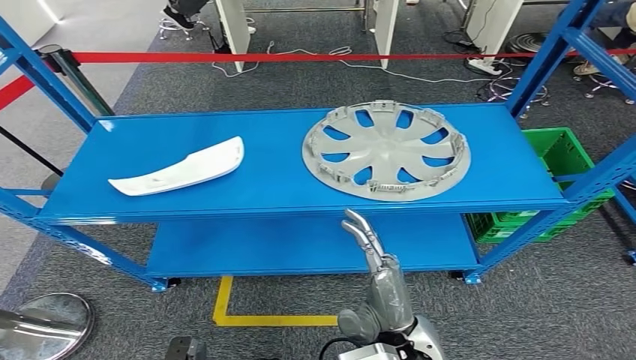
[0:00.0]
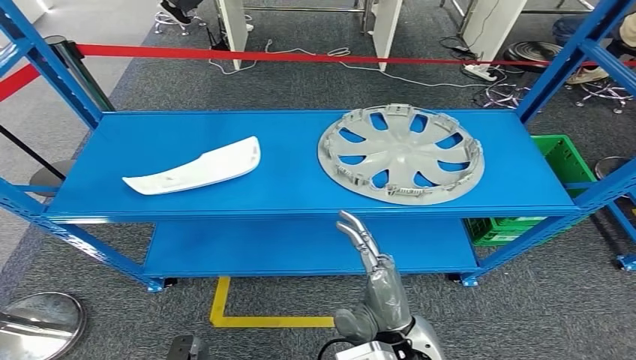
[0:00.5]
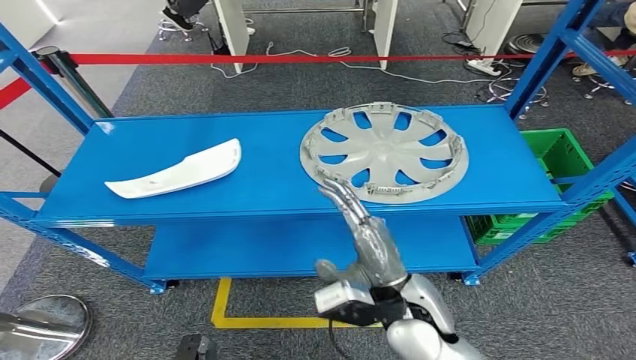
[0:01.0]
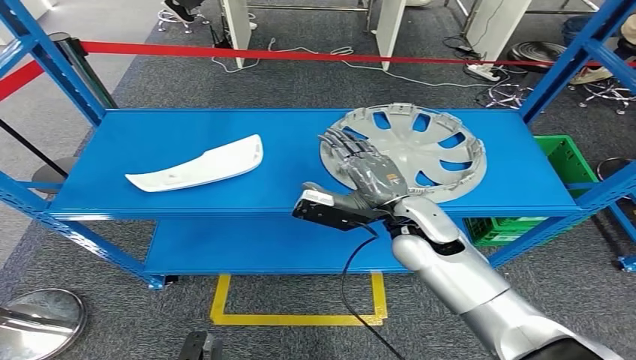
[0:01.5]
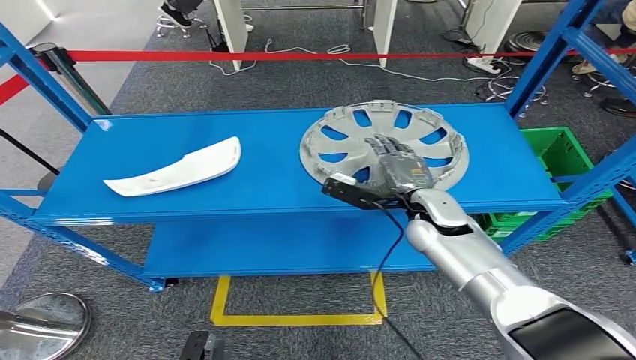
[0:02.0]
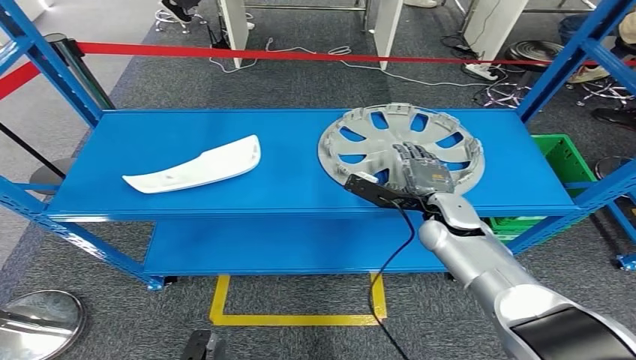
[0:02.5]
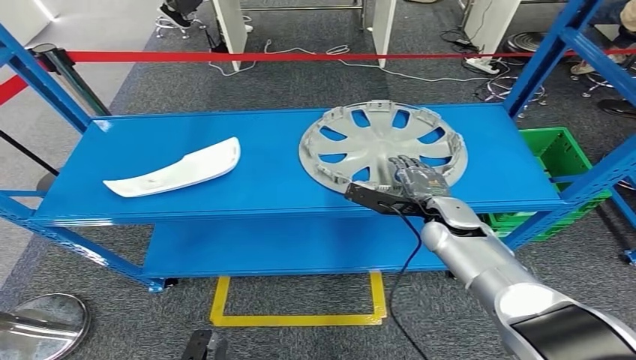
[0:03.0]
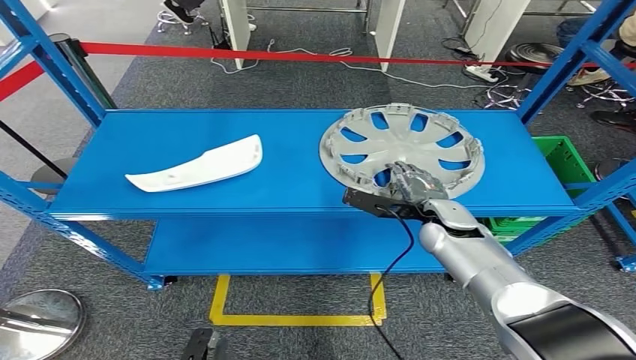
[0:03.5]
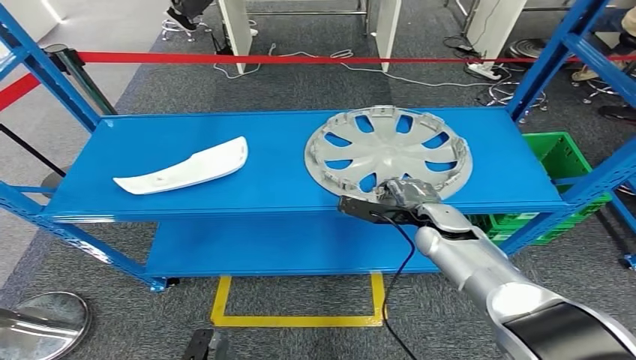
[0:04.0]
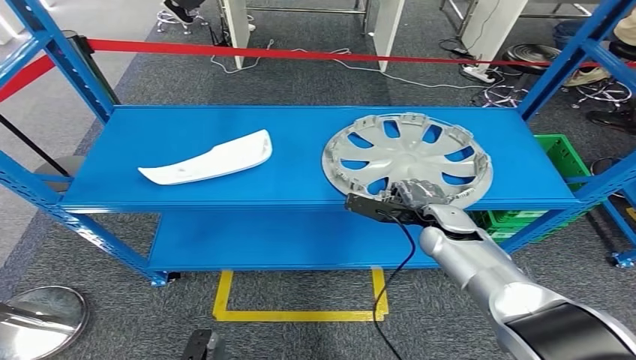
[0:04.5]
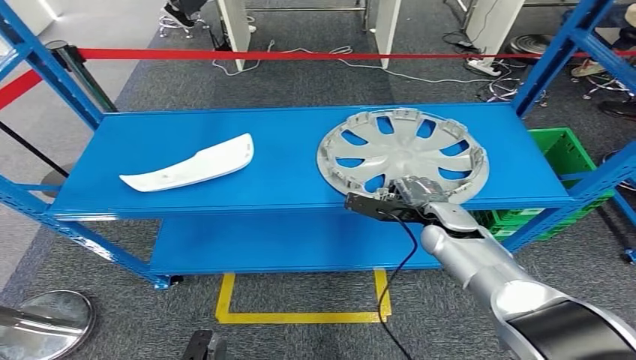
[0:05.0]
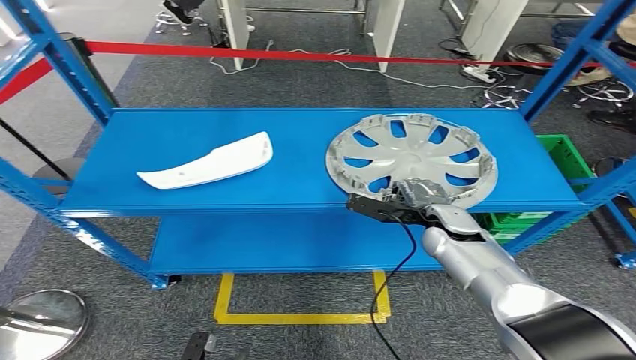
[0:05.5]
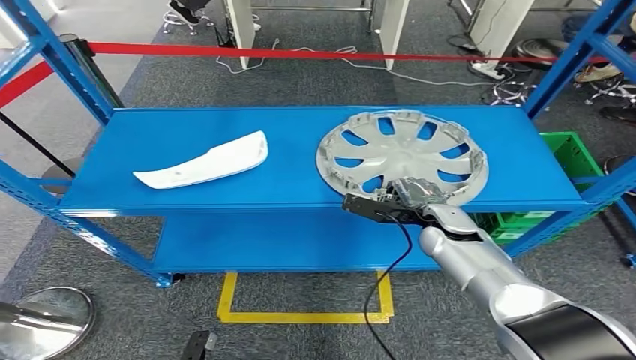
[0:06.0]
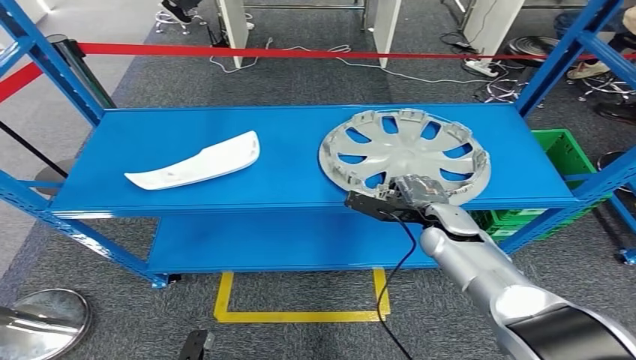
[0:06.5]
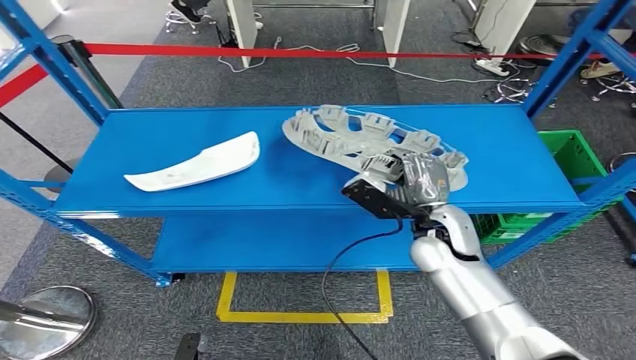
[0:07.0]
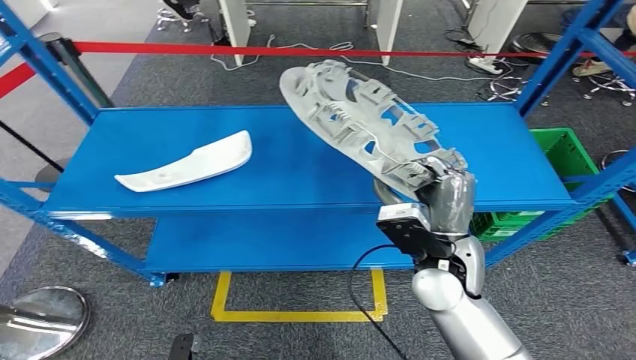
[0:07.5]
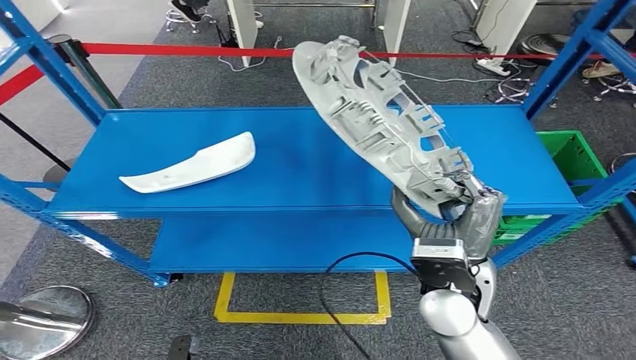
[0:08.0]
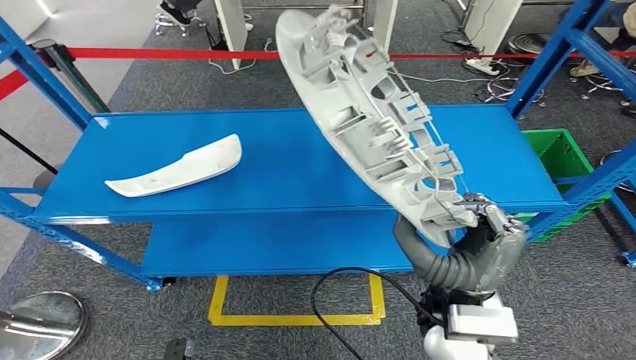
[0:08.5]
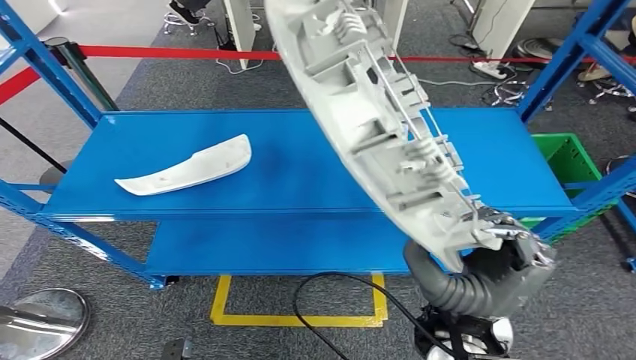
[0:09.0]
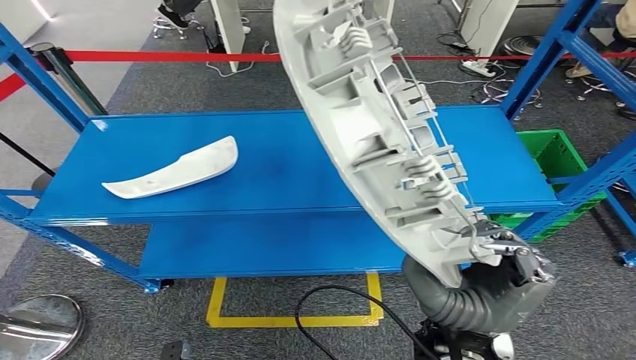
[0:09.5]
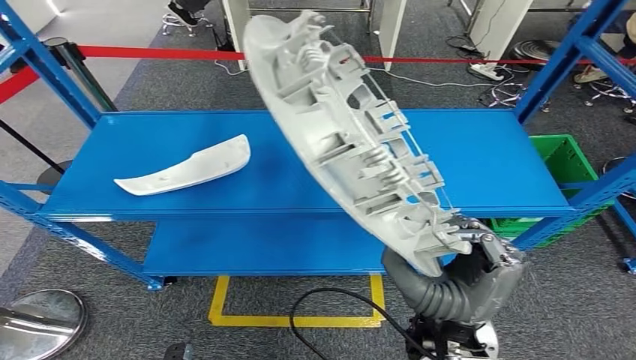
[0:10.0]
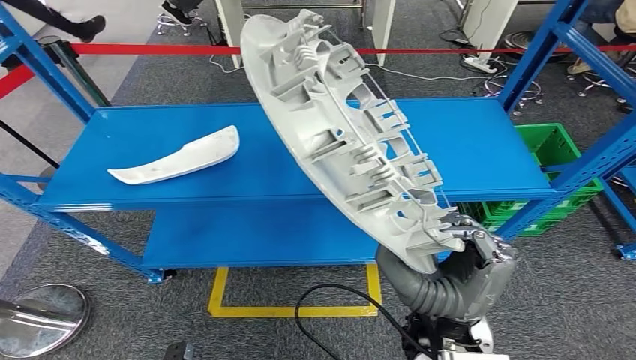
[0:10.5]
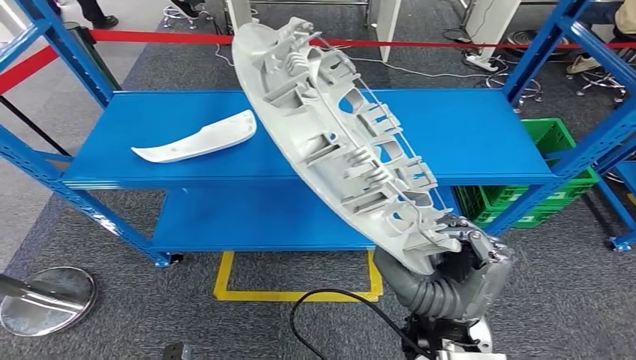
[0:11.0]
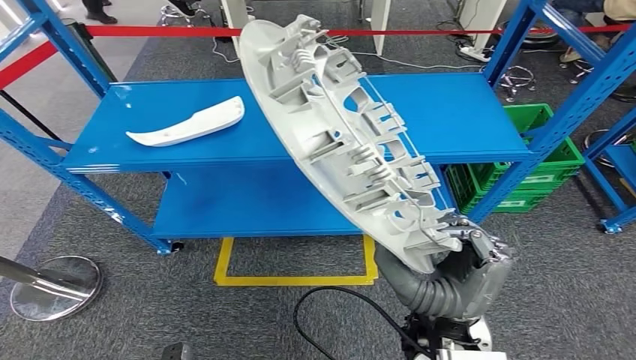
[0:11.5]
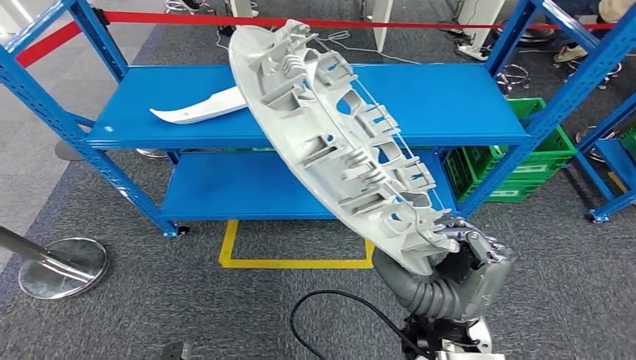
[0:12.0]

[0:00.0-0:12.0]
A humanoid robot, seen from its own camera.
Step, 0:00.0 to 0:10.0: Pick up the small component from the shelf.
0:00.0 to 0:02.0: The right hand shifts approximately 25 cm forward.

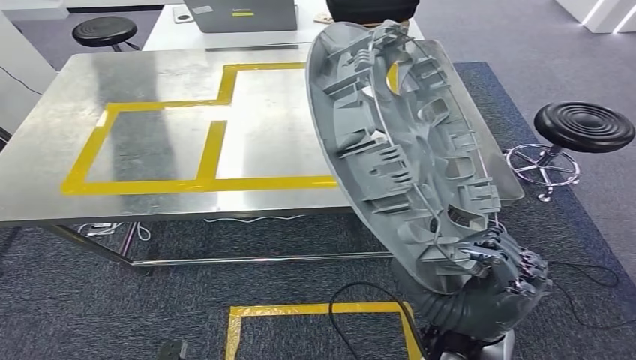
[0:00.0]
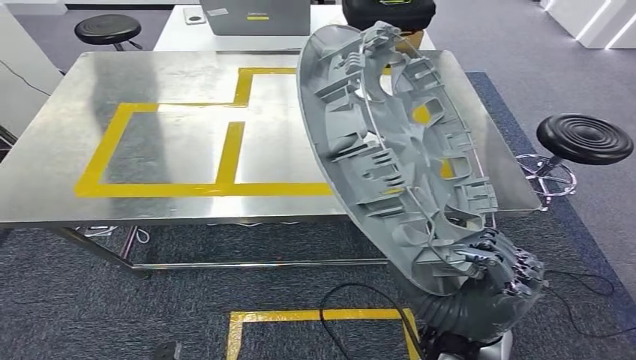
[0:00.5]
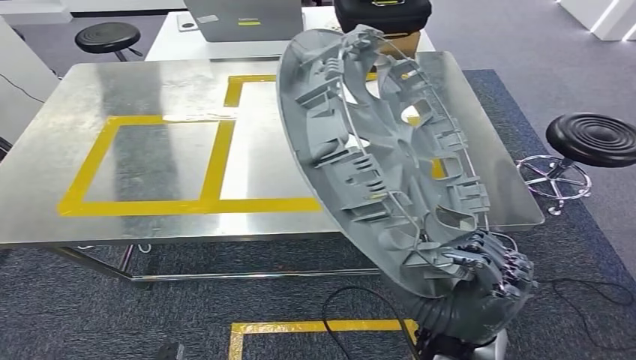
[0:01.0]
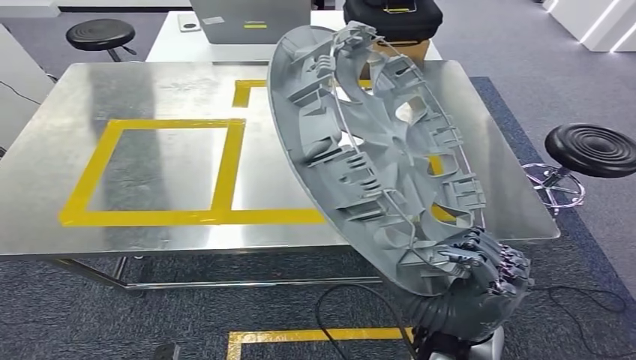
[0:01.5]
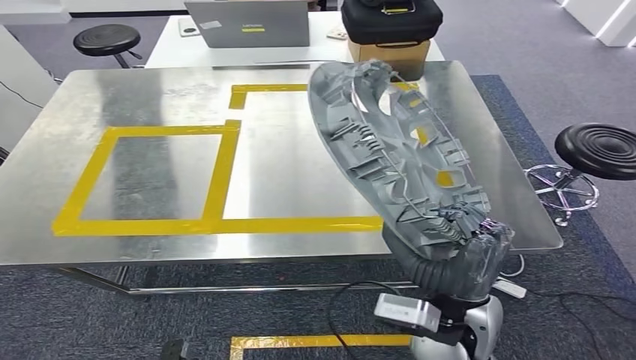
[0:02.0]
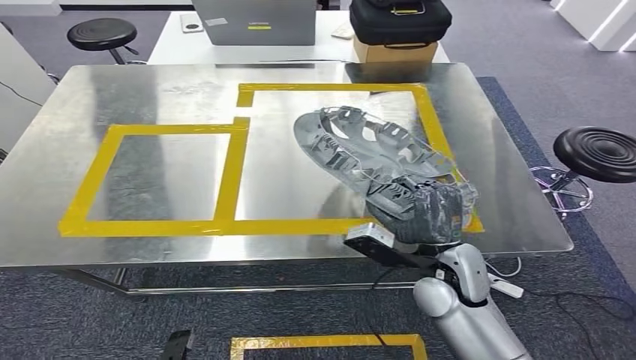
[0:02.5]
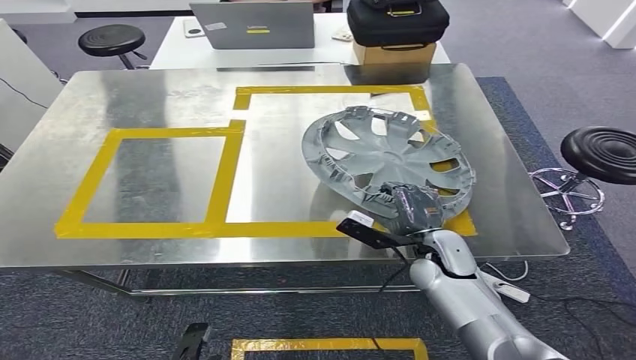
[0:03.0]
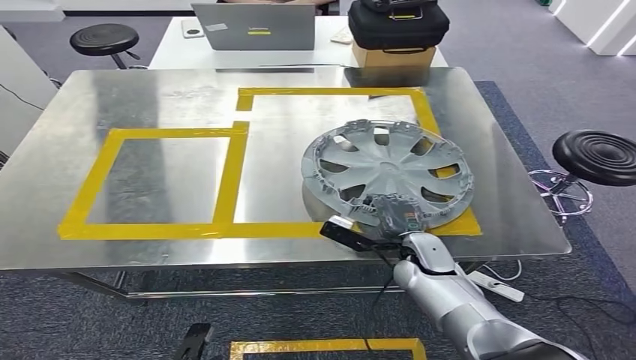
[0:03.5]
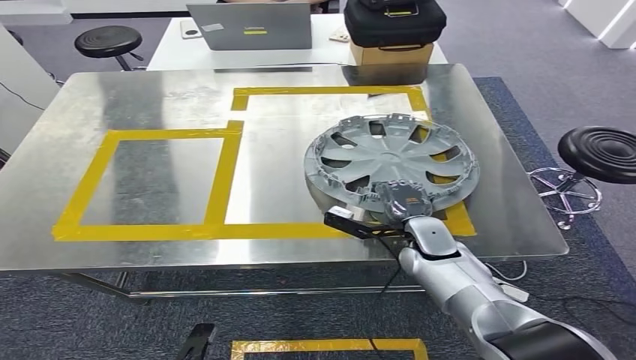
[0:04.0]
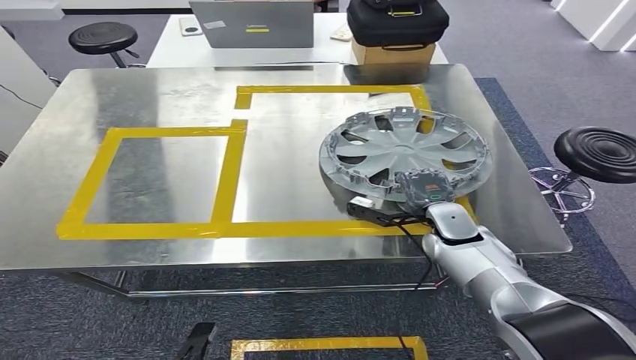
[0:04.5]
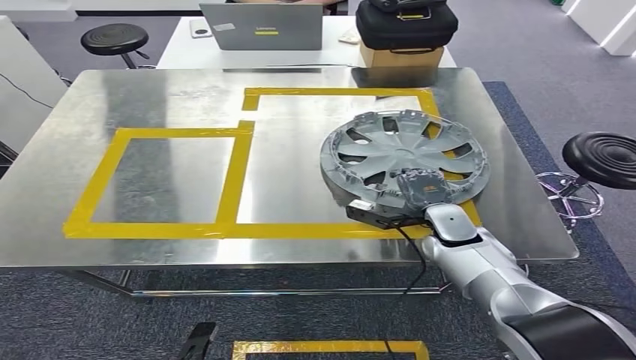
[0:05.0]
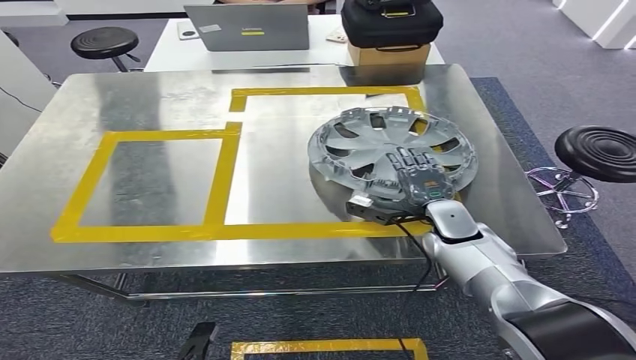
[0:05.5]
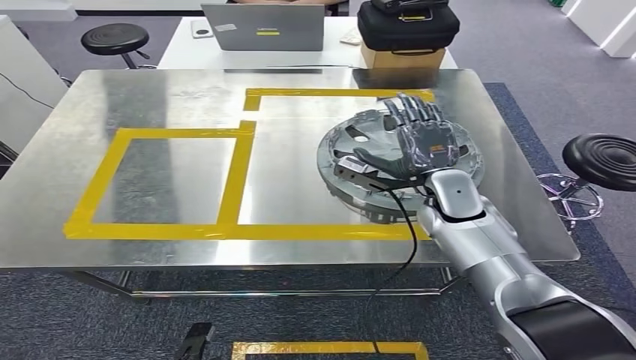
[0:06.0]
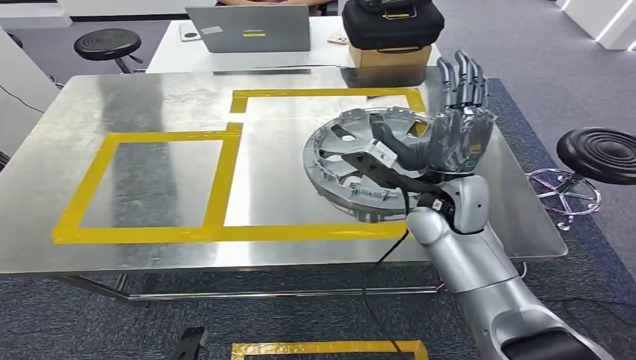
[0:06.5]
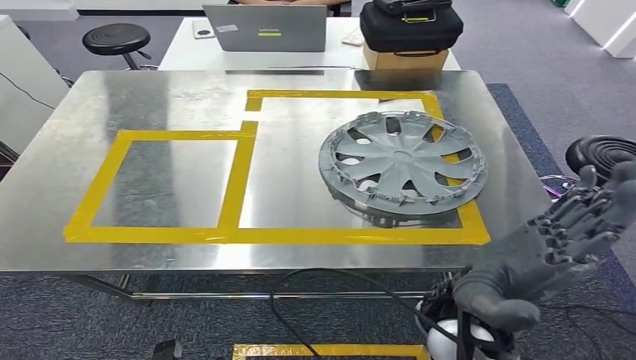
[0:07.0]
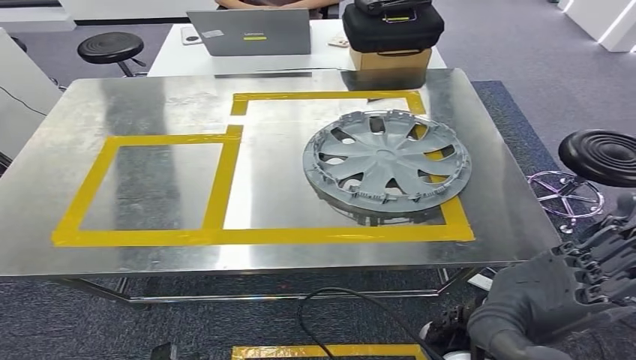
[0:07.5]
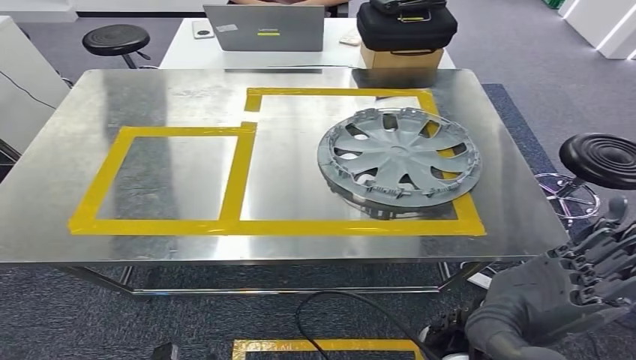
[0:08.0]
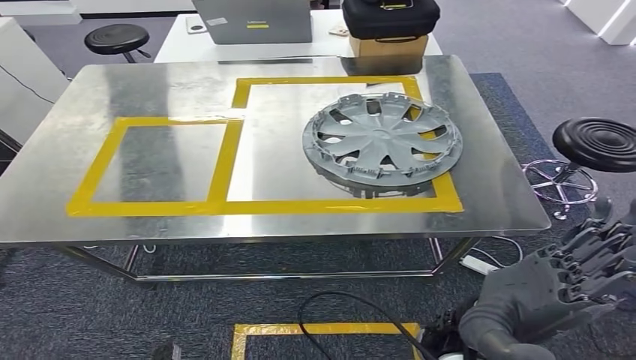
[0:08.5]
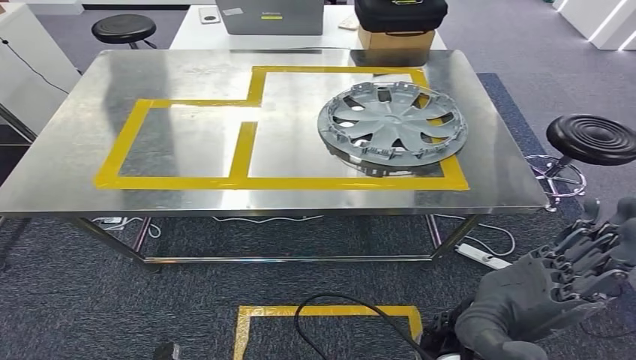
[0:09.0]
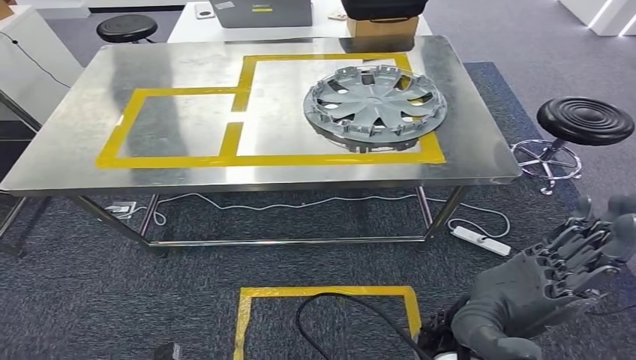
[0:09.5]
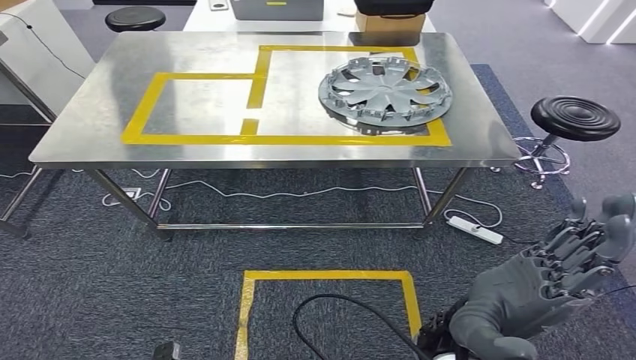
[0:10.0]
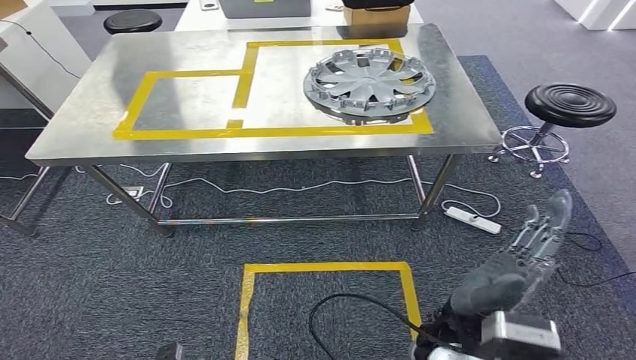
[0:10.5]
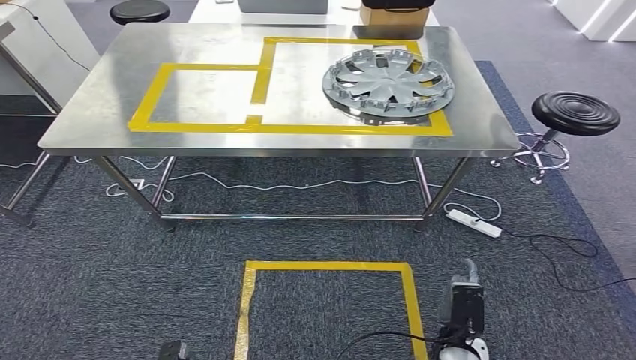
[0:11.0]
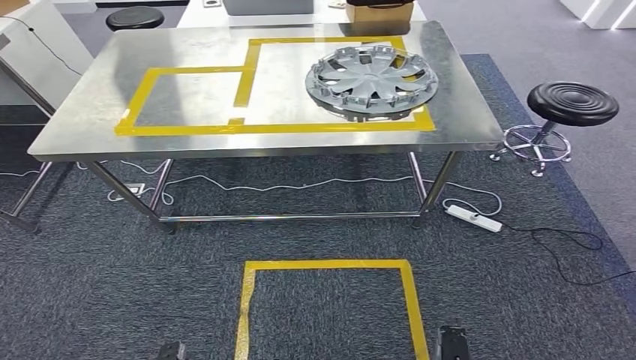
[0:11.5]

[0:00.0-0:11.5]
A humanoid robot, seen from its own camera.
Step, 0:02.0 to 0:08.0: Insert the small component into the corresponding slot on the workbench.
